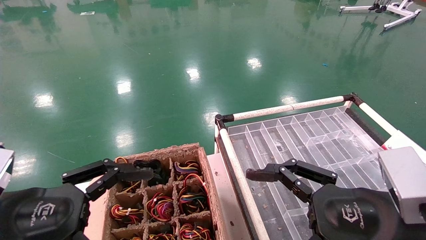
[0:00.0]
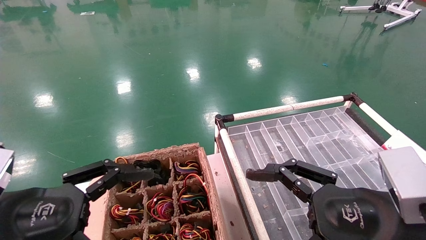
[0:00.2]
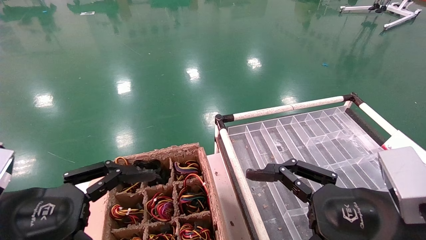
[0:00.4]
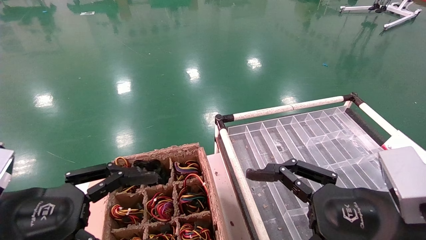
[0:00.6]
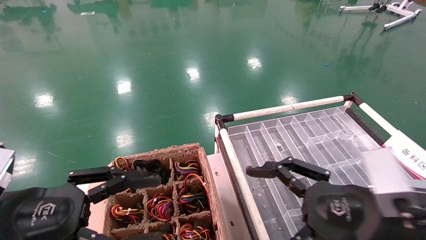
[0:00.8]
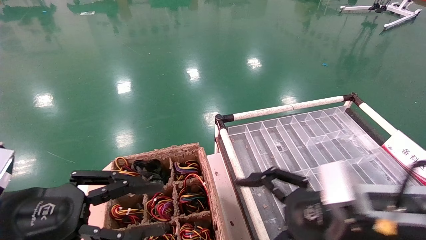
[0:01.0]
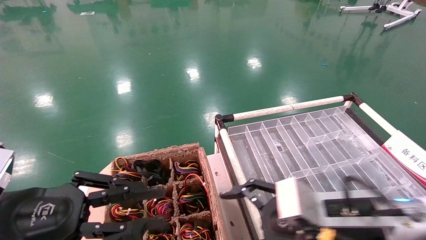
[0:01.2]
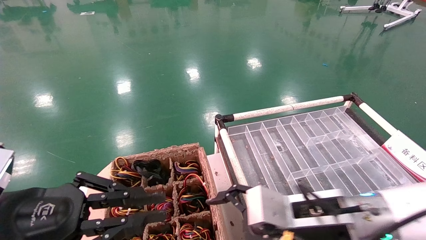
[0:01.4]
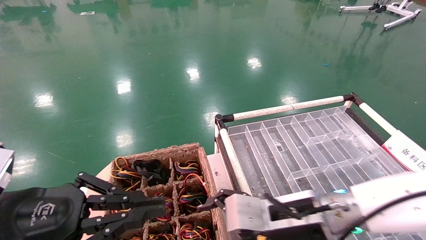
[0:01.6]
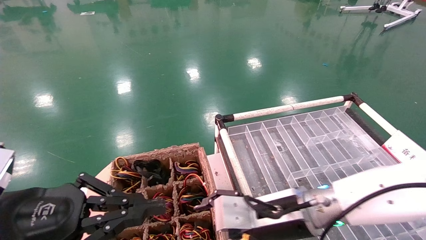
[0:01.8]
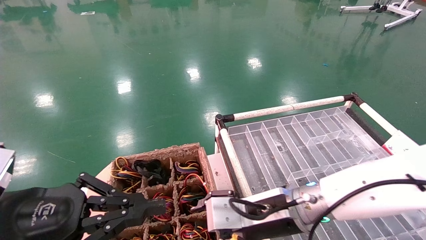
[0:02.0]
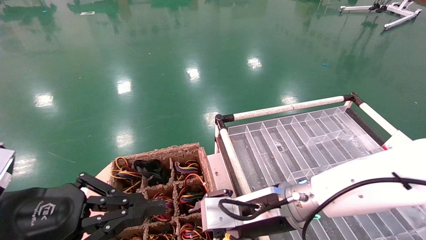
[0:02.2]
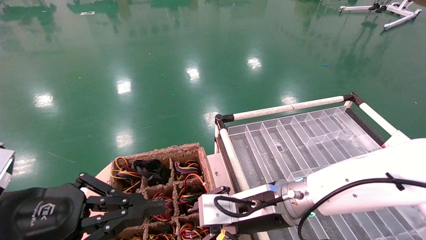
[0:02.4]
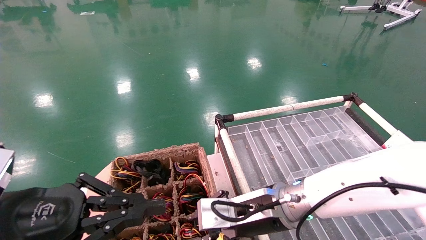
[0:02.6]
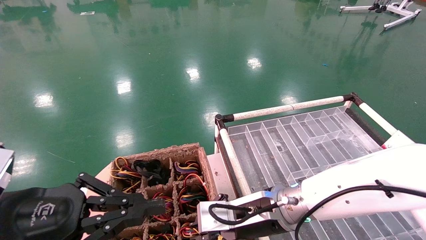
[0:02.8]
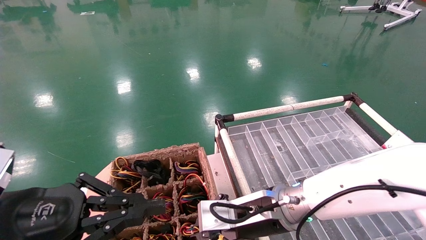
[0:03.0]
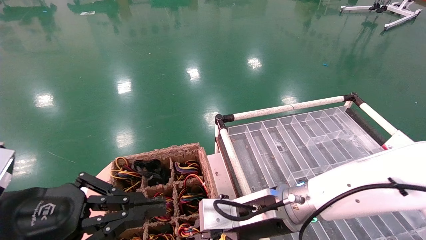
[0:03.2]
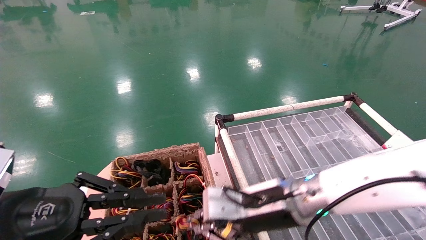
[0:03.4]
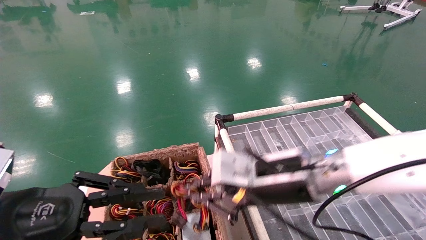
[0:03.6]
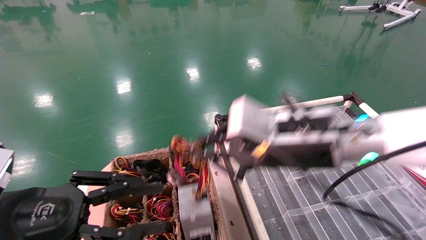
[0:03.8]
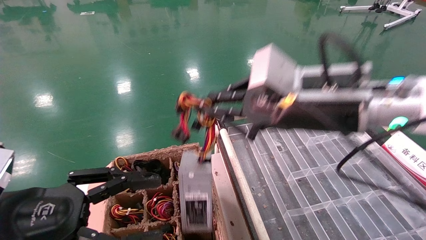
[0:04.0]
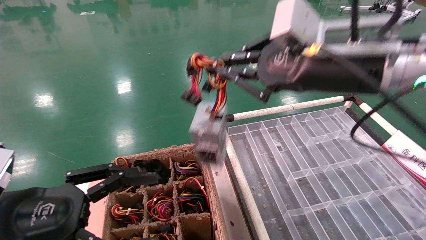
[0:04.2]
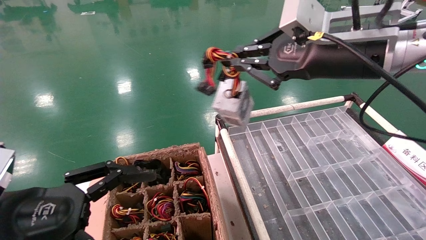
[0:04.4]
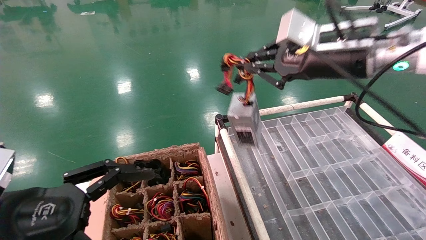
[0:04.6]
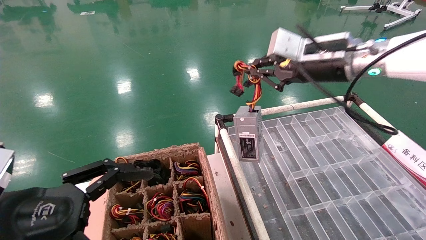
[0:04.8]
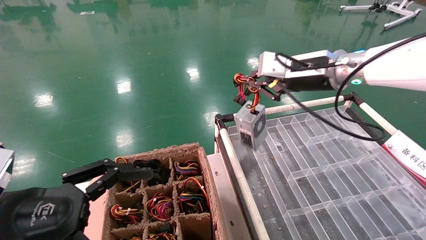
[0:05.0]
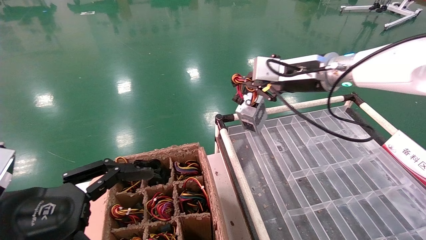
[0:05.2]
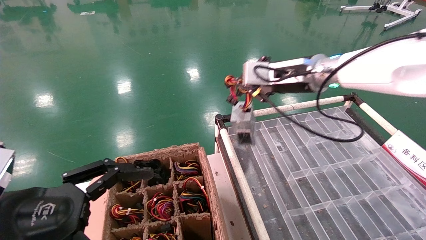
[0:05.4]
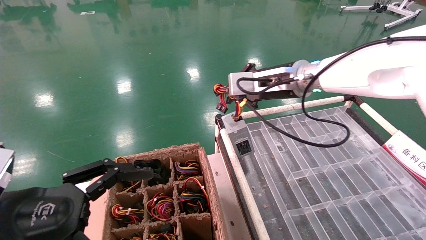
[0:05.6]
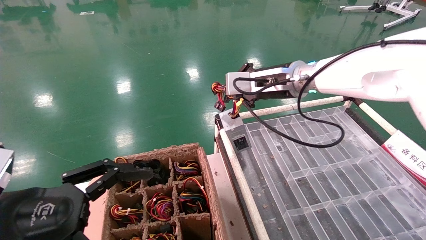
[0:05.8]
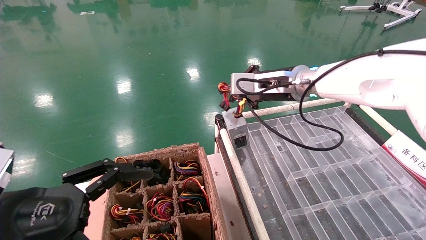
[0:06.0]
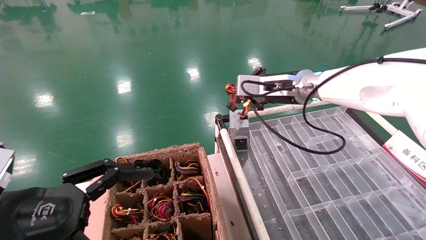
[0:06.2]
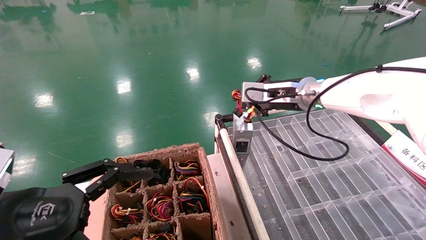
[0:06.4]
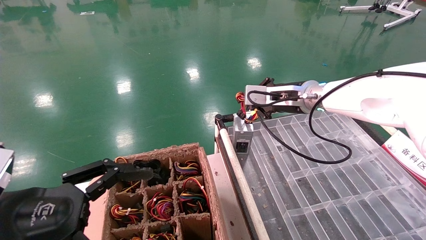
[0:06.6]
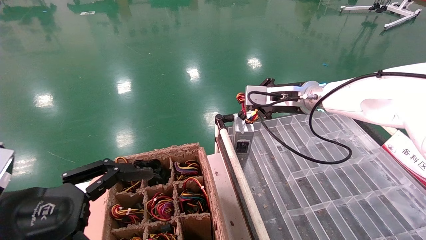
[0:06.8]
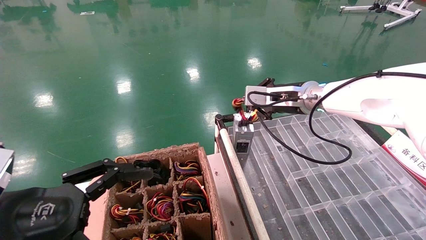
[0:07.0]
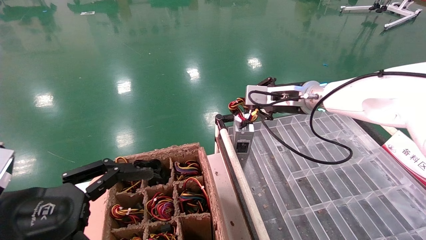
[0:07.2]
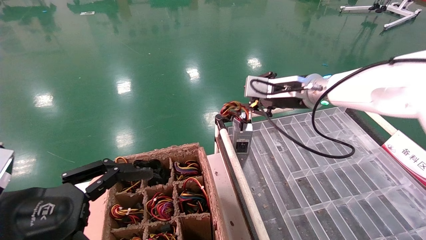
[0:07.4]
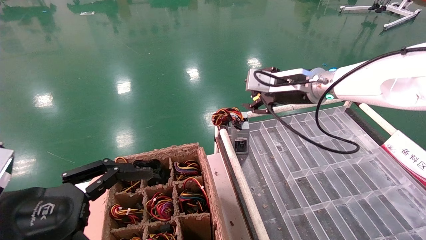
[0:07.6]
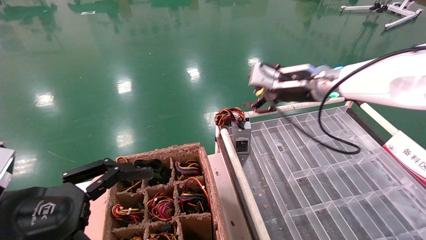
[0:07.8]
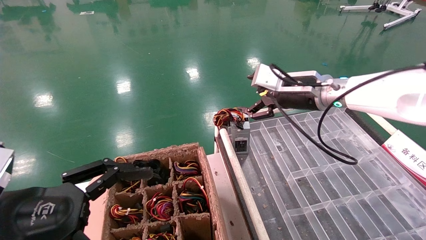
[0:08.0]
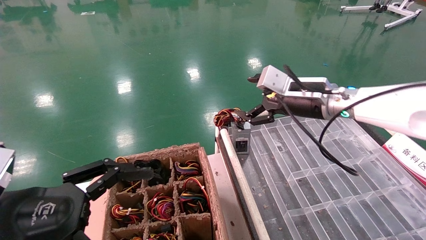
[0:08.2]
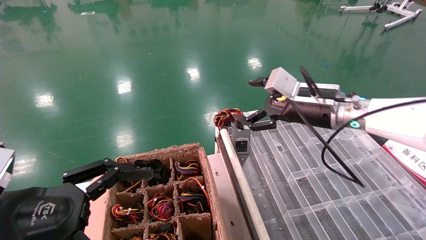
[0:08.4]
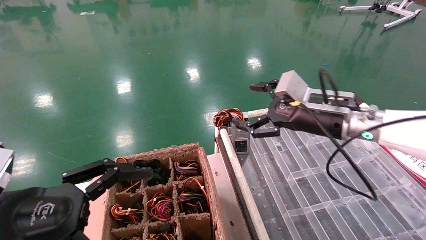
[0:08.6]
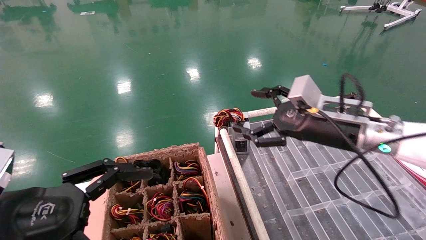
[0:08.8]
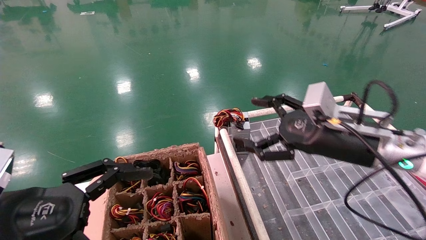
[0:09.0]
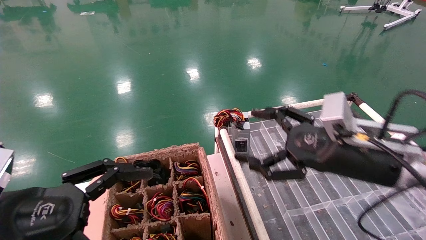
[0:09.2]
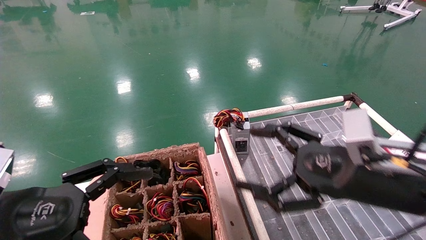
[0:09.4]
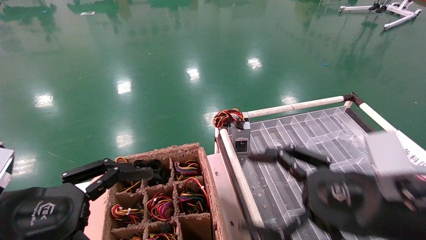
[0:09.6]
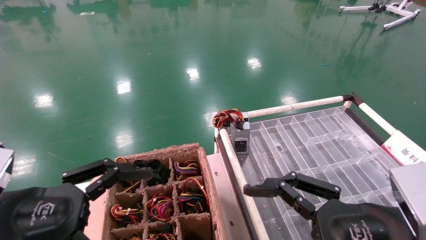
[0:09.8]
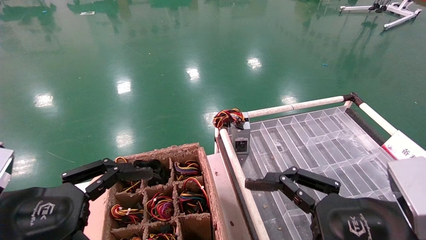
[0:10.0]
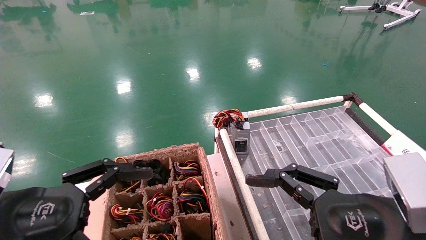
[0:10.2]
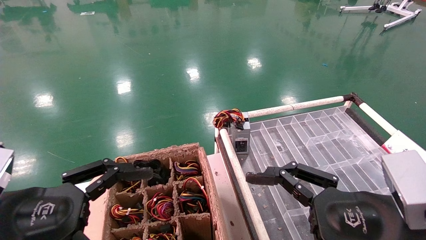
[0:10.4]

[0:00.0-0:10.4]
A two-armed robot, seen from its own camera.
Step, 0:00.8 to 0:03.0: Grab and lift the power supply from the large box.
Step, 0:03.2 to 0:07.0: Place the power supply on the operating table.
0:00.0 to 0:01.4: The right gripper shifts some 10 cm to the left and forward, while the left gripper closes its fingers.
0:01.4 to 0:03.0: The right gripper goes some 5 cm to the left, and closes.
0:03.0 to 0:04.4: The right gripper heads upward and to the right, covering some 25 cm, while the left gripper opens up.
0:04.4 to 0:06.0: The right gripper travels forward by some 15 cm.
0:06.0 to 0:07.4: There are only small adjustments of the grippers.
0:07.4 to 0:09.0: The right gripper moves backward and downward, roughly 15 cm, and opens.
0:09.0 to 0:10.4: The right gripper travels backward by about 15 cm.

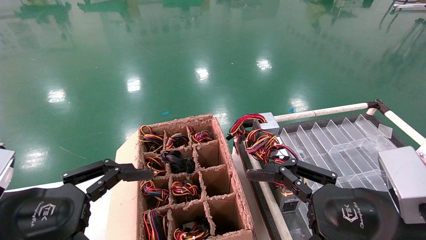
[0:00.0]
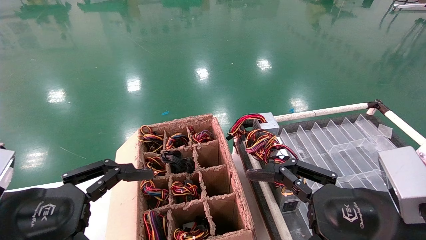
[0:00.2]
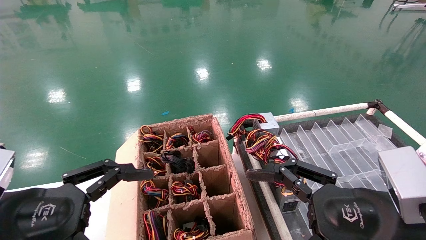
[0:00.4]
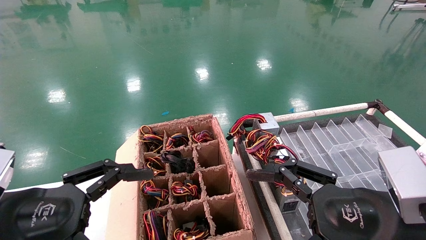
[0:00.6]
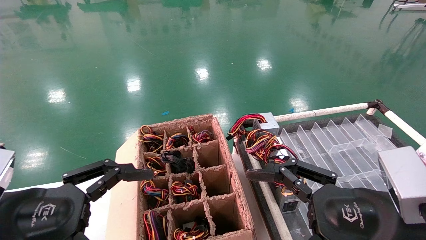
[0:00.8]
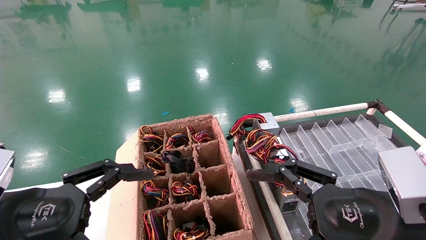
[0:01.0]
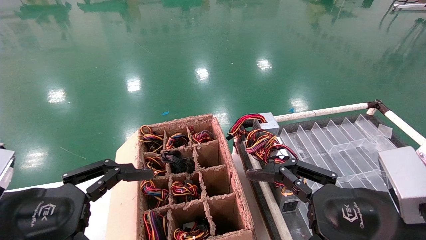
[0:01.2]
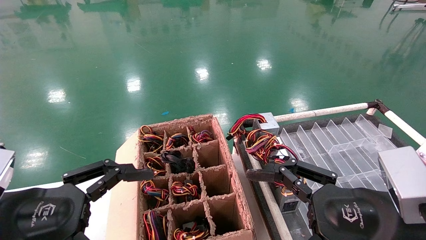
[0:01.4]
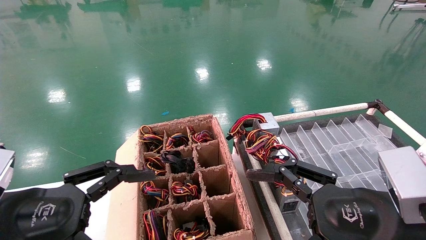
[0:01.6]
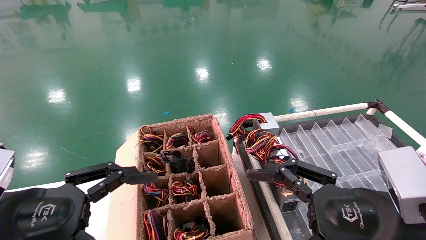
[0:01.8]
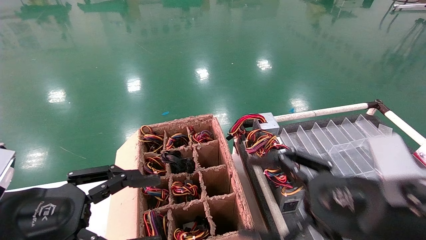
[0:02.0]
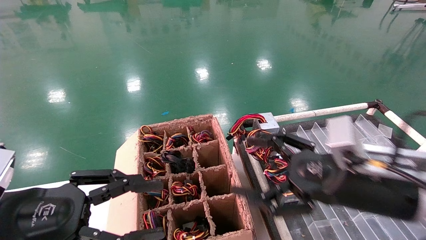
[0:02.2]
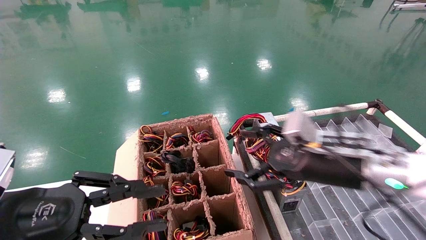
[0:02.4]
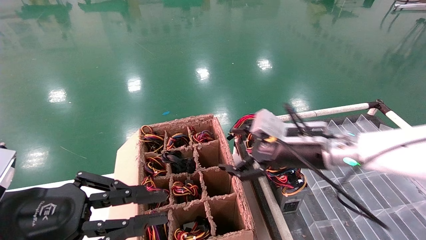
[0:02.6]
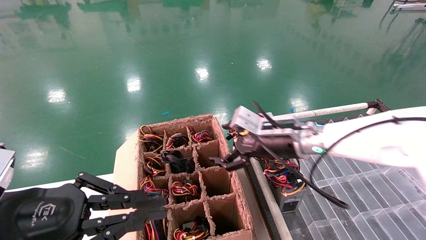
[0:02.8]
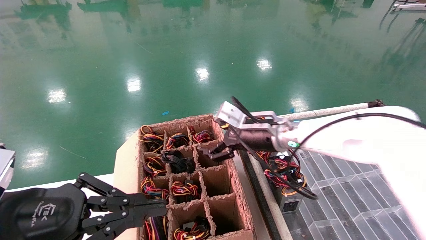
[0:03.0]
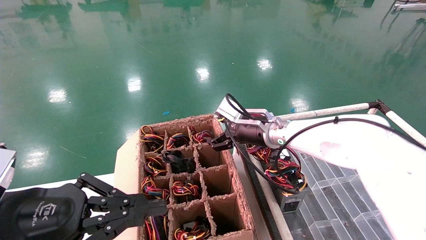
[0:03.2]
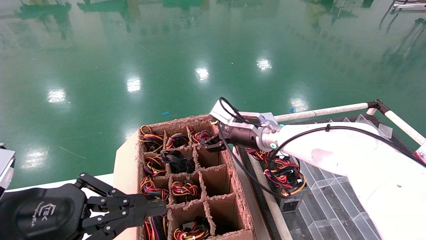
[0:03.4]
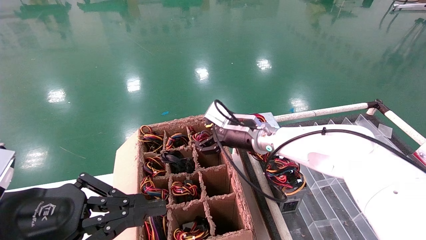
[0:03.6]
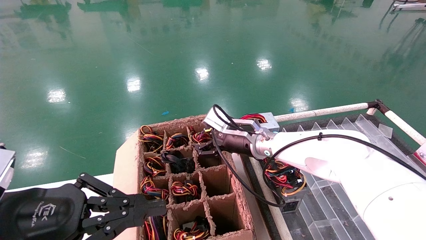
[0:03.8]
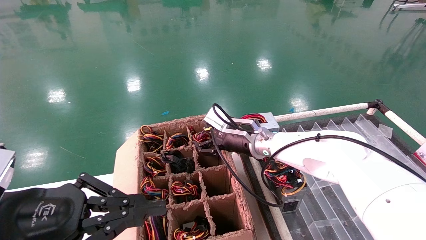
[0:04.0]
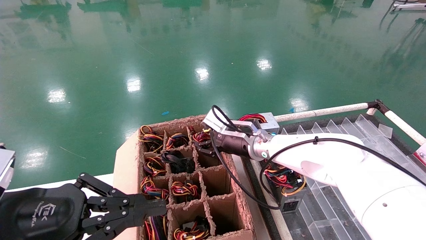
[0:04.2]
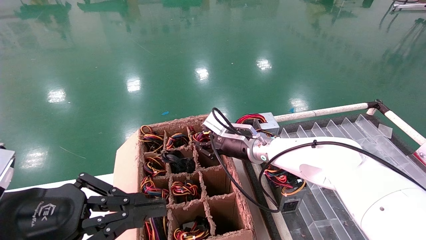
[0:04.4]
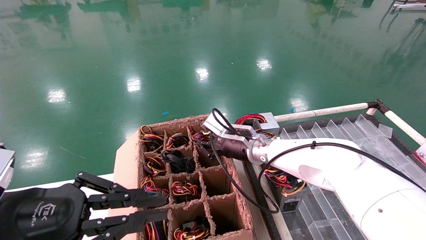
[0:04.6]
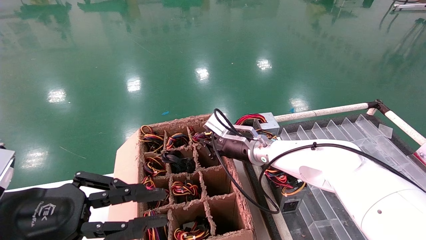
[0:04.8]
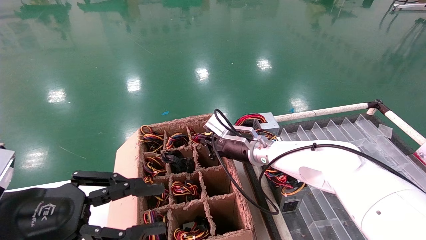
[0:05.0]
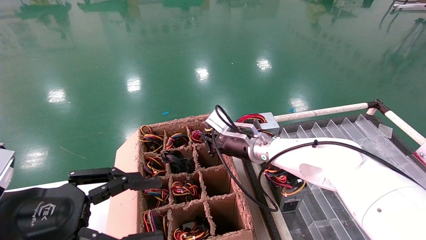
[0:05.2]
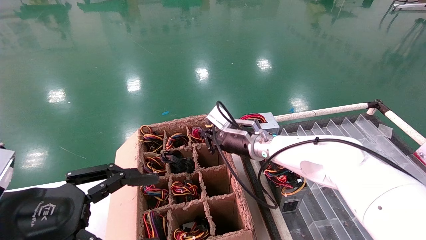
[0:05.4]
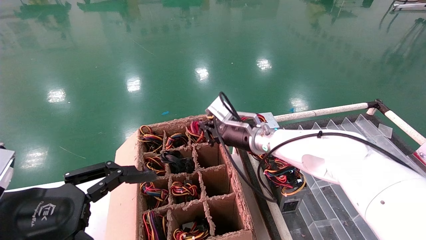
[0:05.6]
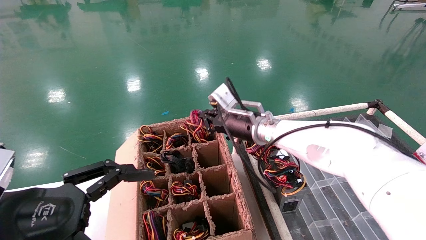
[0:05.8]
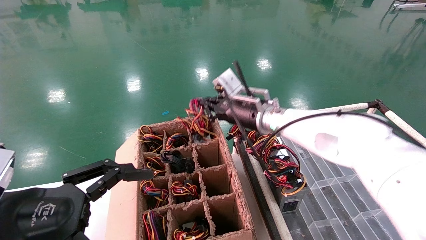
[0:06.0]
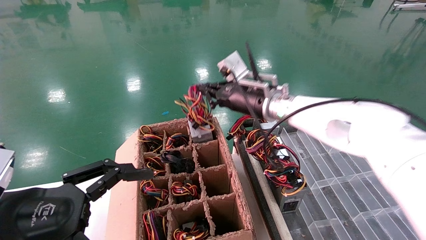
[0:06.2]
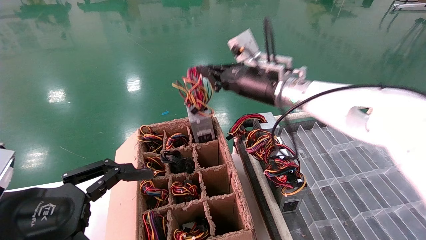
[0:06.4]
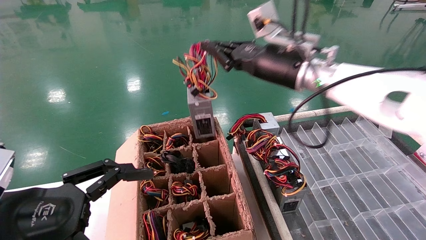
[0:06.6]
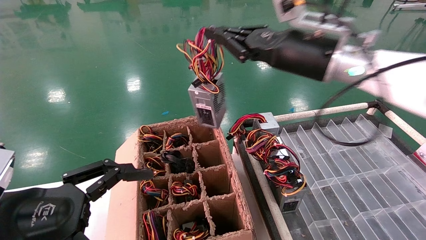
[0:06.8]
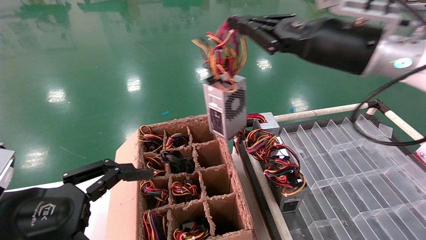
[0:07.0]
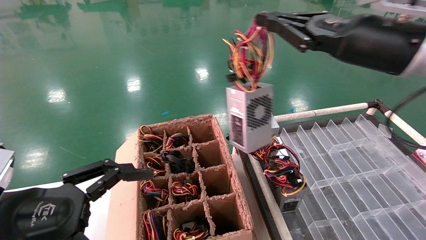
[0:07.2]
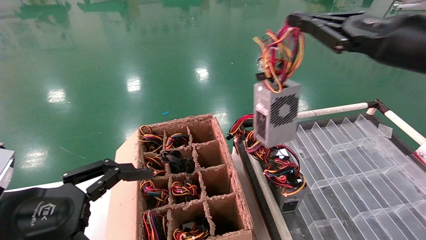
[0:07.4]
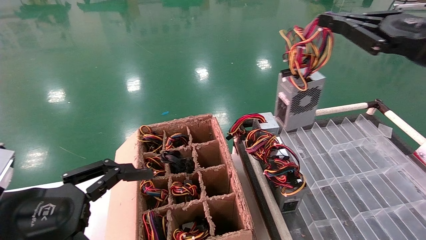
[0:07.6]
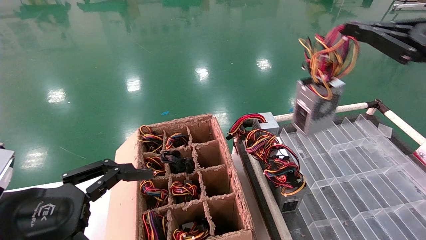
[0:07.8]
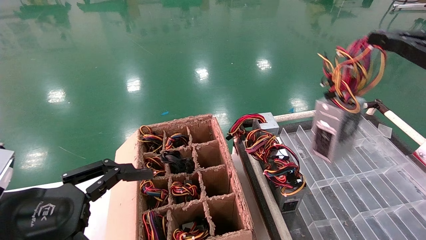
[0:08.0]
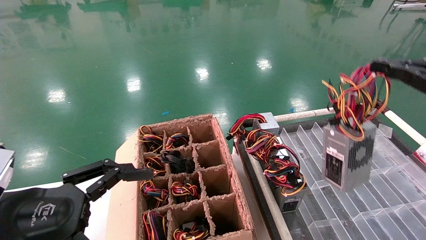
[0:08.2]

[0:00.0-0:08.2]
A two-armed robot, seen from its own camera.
Step, 0:02.0 to 0:04.8: Grab and lift the power supply from the large box.
0:00.0 to 0:01.6: The two grippers keep their place.
0:01.6 to 0:03.2: The left gripper closes up, while the right gripper goes some 30 cm forward and to the left.
0:03.2 to 0:05.0: The right gripper closes.
0:05.0 to 0:06.6: The left gripper opens its fingers. The right gripper shifts about 20 cm upward and backward.
0:06.6 to 0:08.2: The right gripper is displaced to the right and backward by some 35 cm.
